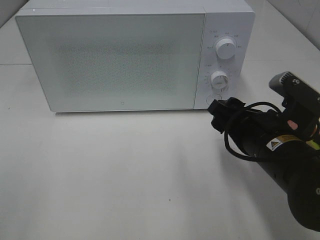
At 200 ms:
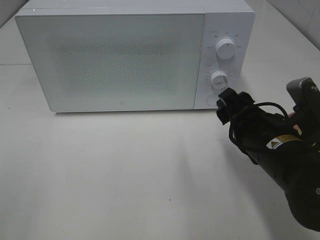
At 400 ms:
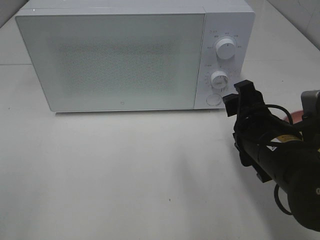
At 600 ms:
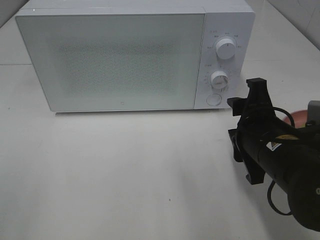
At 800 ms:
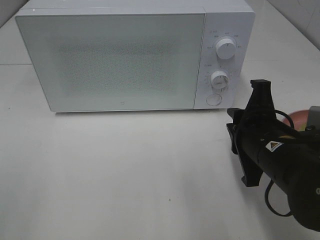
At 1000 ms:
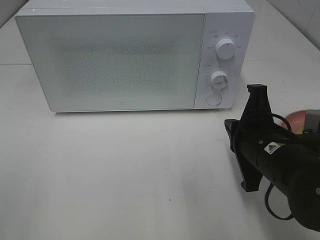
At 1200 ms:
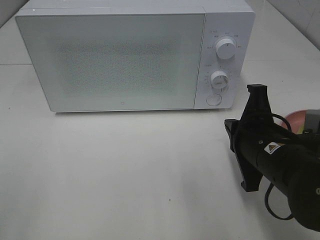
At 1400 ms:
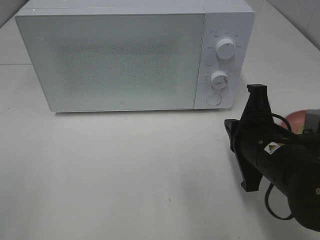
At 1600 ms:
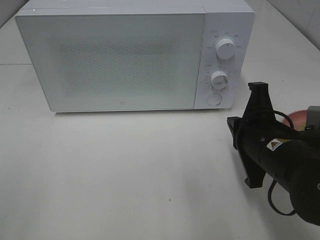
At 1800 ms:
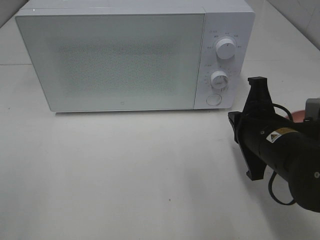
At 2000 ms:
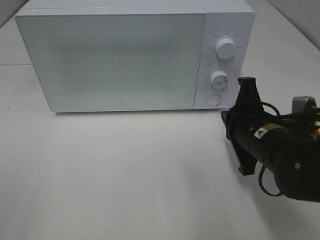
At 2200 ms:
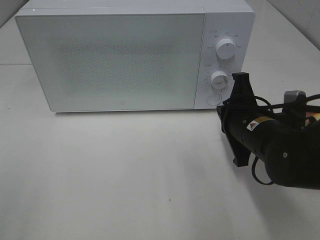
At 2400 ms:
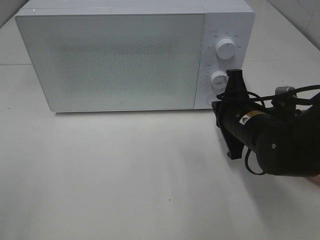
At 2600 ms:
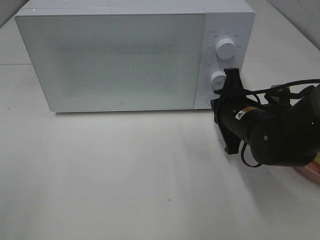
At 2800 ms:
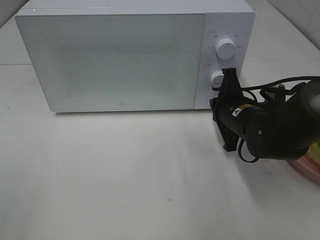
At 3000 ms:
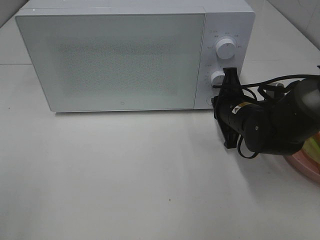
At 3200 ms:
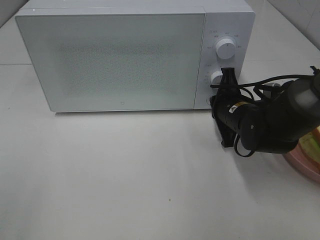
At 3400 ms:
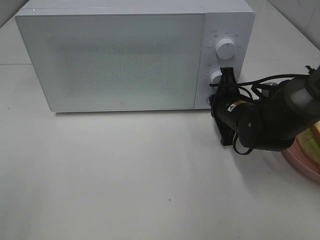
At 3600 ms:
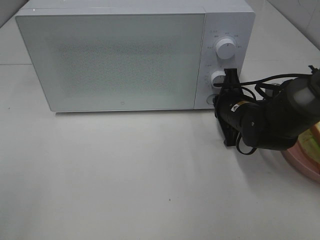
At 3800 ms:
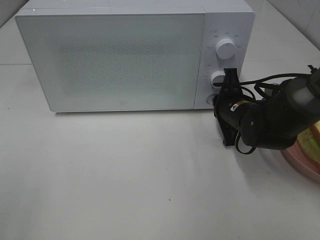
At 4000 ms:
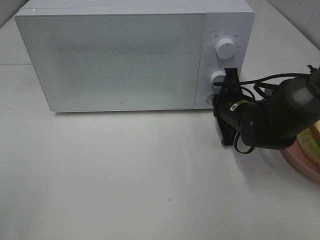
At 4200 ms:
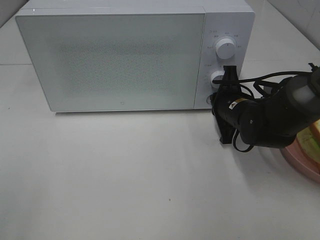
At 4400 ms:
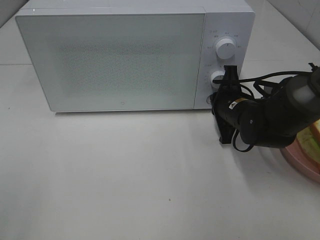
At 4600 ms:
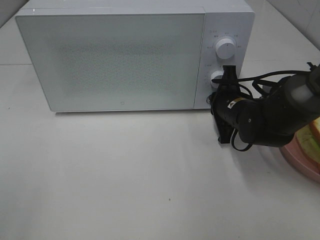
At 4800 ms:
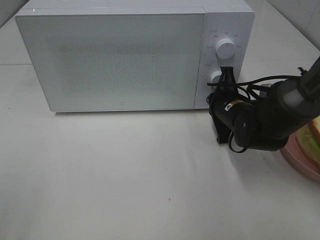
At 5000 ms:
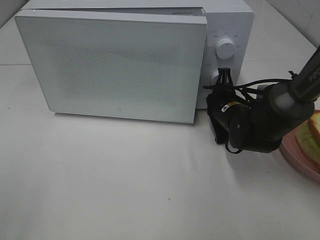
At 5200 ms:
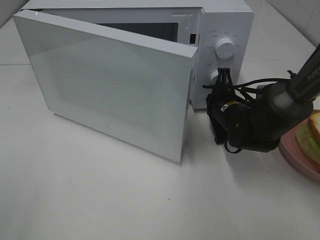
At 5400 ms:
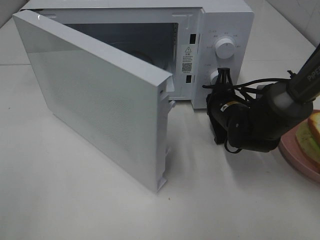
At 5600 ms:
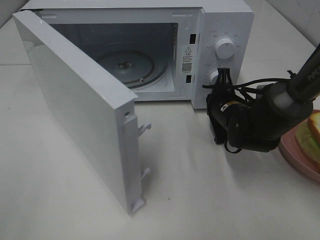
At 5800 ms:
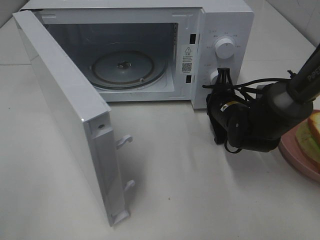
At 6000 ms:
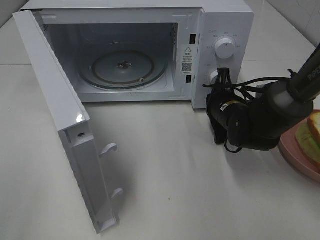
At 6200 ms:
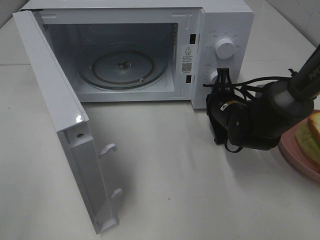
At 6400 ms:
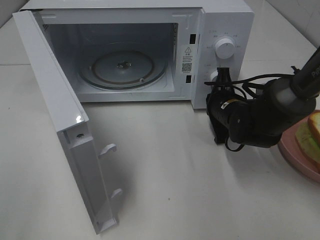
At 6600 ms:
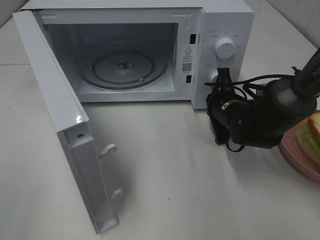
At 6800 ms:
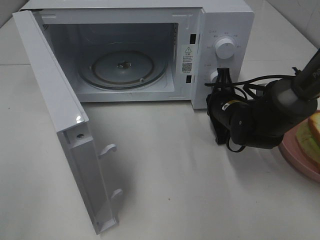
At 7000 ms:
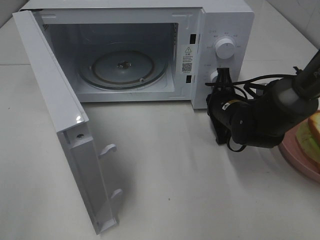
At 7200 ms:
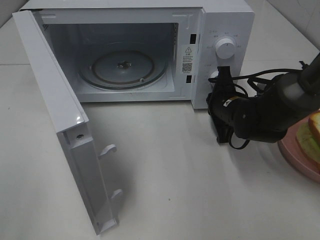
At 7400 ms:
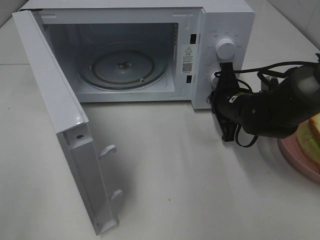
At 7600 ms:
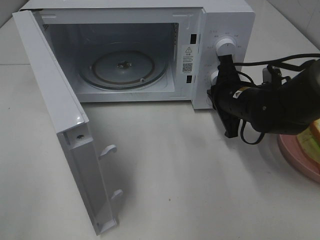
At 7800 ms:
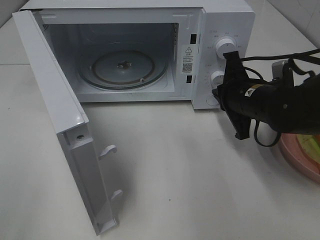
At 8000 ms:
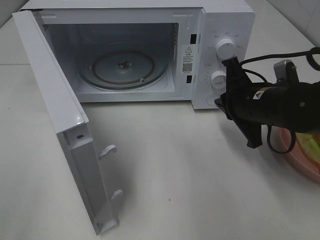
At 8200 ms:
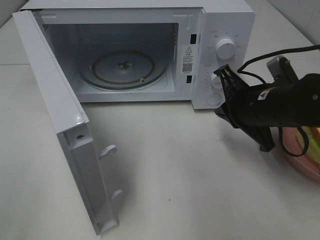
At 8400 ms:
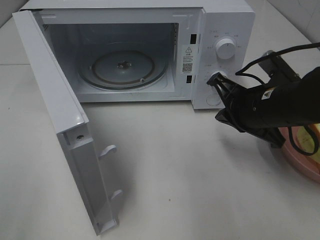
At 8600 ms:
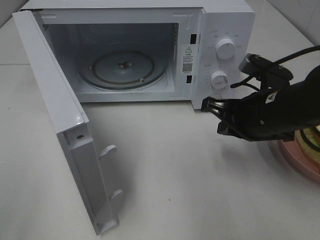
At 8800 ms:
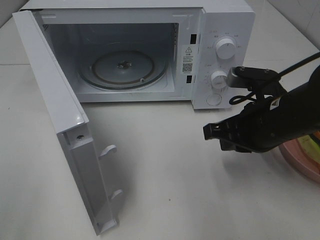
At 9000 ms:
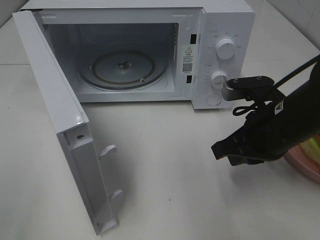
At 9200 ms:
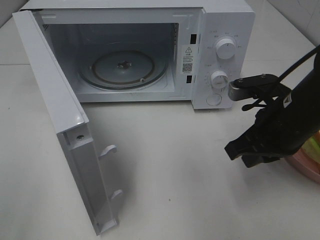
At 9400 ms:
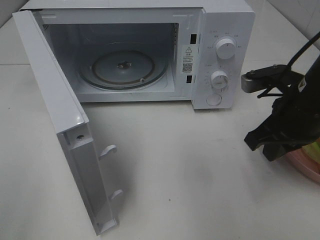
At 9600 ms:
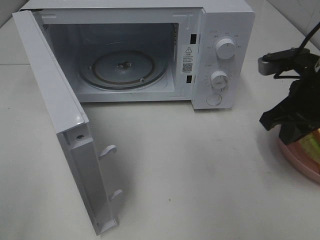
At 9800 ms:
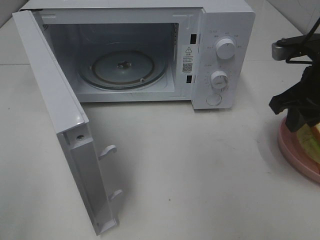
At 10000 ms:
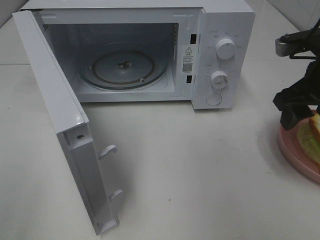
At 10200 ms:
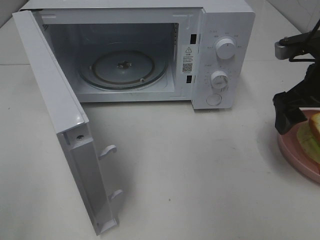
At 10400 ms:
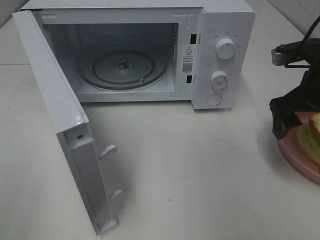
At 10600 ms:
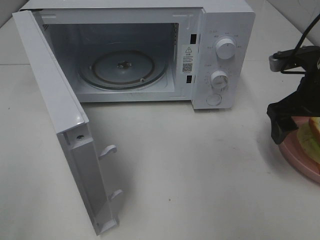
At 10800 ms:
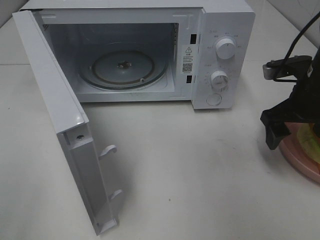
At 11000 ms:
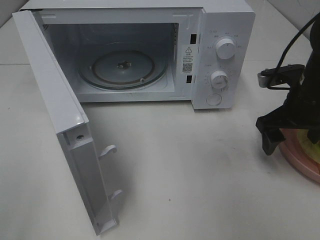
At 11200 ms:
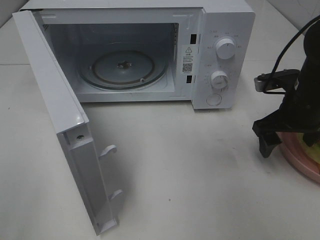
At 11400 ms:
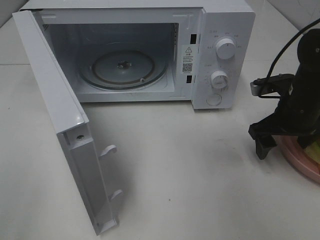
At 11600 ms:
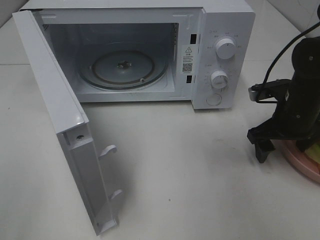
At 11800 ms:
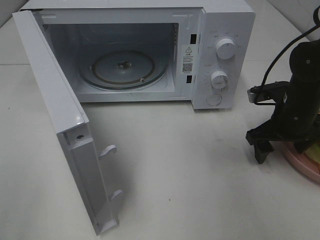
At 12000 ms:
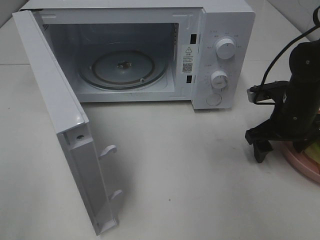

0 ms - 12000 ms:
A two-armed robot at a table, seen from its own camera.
Task of the whole recording: Heat Sandwich.
Step, 0 ms - 7400 ms: Right hand: press the switch.
0 ms - 1600 ms: The right gripper closes.
1600 ms - 3000 ms: The right gripper moves forward, some 10 cm.
3000 ms - 4400 ms: The grippers make only small movements.
6000 ms - 7600 ms: The right gripper moves roughly 5 cm.
7600 ms - 9000 ms: The right gripper heads backward, covering approximately 10 cm.
9000 ms - 10400 ms: The right gripper shifts some 10 cm to the right and forward, and opens up.
10400 ms - 12000 ms: The right gripper moves downward, approximately 10 cm.

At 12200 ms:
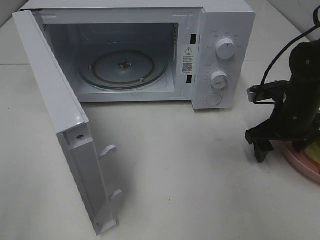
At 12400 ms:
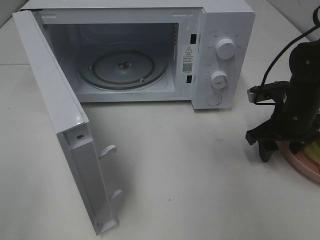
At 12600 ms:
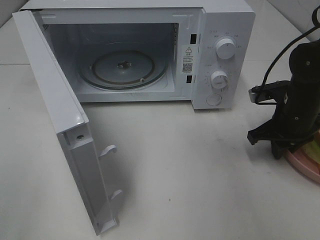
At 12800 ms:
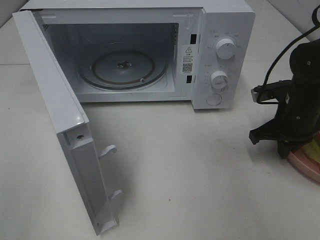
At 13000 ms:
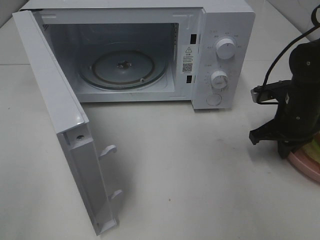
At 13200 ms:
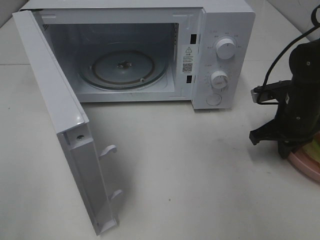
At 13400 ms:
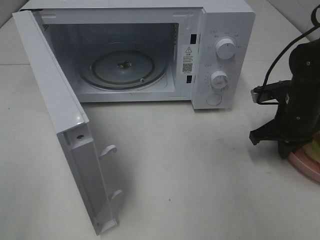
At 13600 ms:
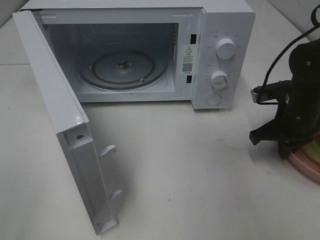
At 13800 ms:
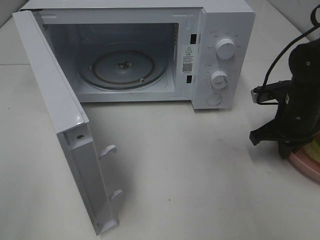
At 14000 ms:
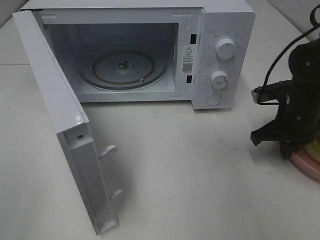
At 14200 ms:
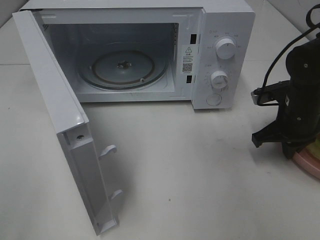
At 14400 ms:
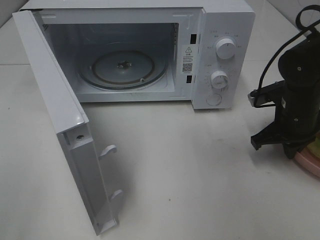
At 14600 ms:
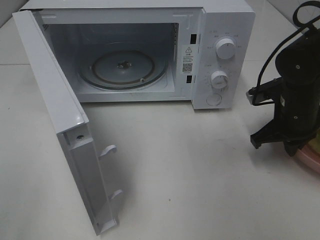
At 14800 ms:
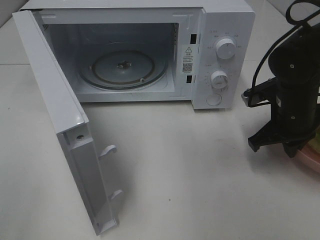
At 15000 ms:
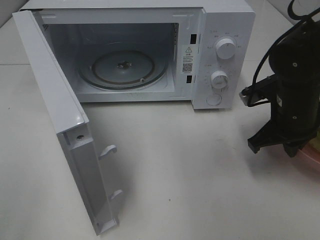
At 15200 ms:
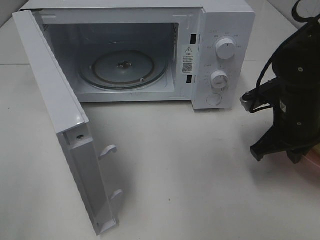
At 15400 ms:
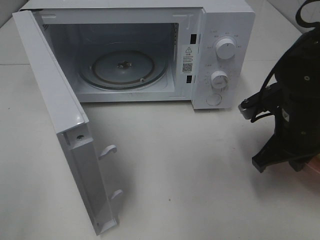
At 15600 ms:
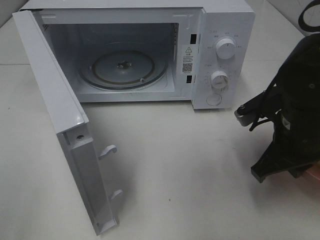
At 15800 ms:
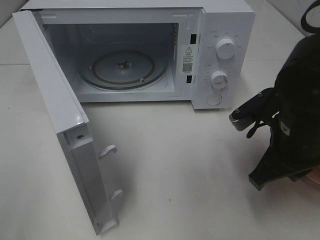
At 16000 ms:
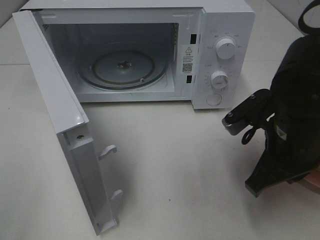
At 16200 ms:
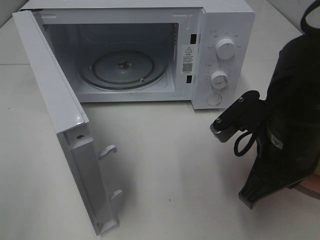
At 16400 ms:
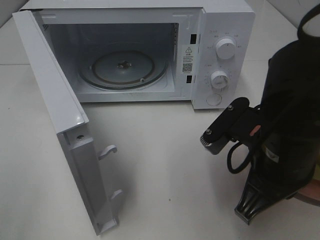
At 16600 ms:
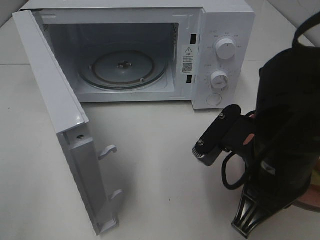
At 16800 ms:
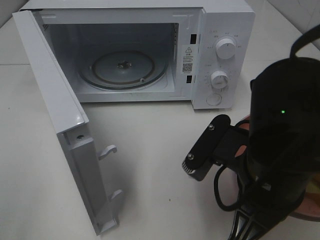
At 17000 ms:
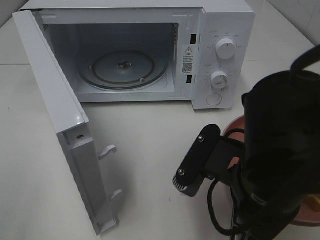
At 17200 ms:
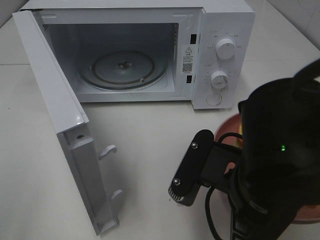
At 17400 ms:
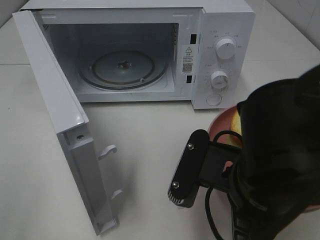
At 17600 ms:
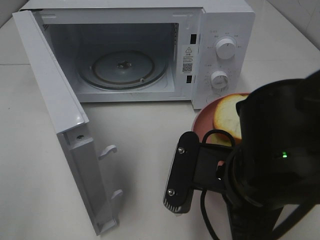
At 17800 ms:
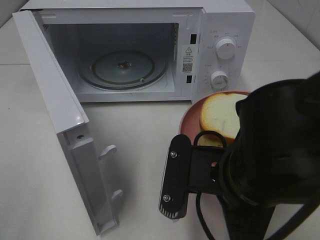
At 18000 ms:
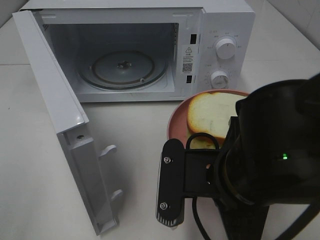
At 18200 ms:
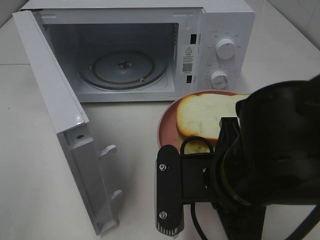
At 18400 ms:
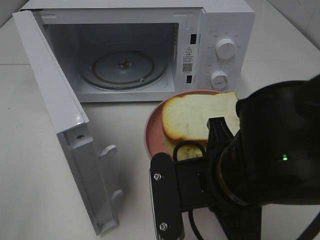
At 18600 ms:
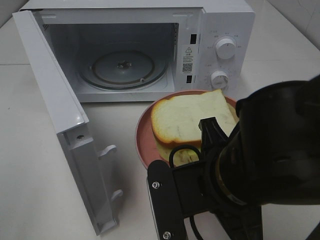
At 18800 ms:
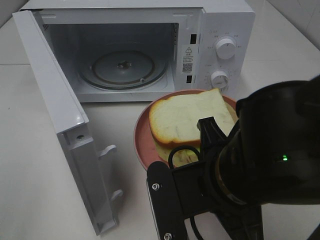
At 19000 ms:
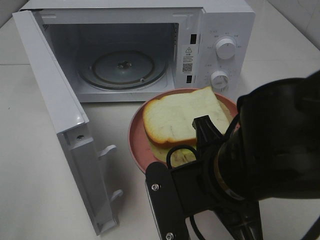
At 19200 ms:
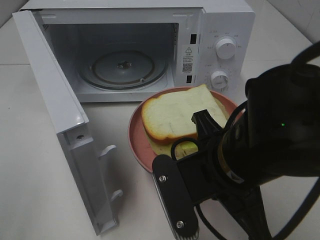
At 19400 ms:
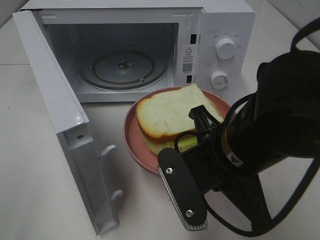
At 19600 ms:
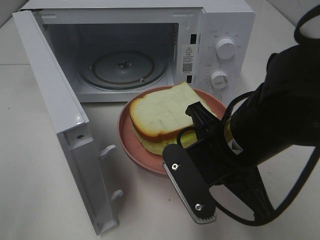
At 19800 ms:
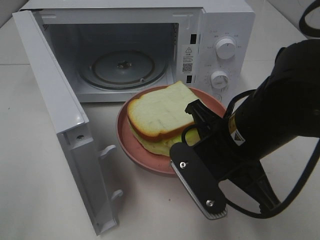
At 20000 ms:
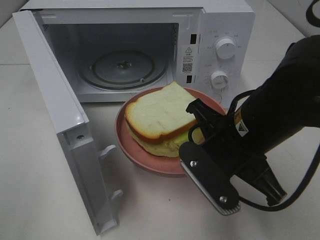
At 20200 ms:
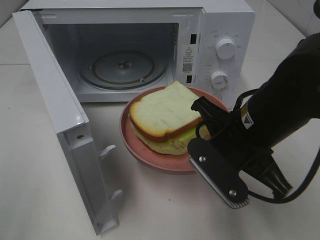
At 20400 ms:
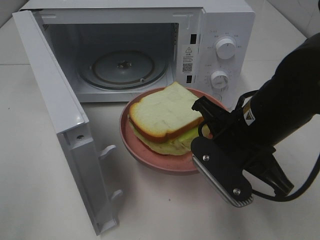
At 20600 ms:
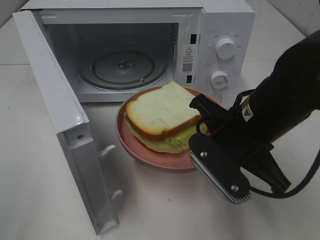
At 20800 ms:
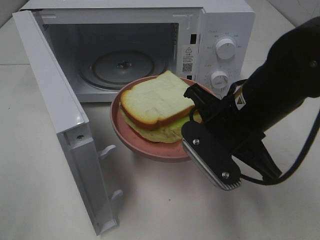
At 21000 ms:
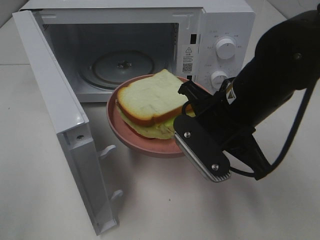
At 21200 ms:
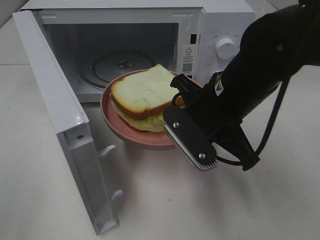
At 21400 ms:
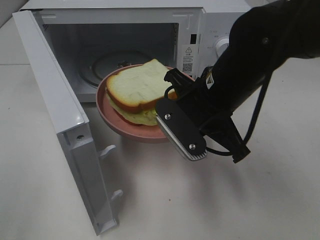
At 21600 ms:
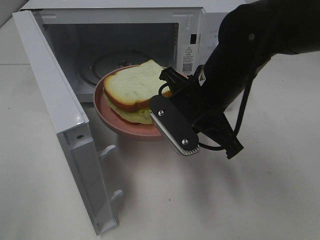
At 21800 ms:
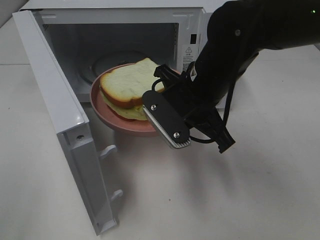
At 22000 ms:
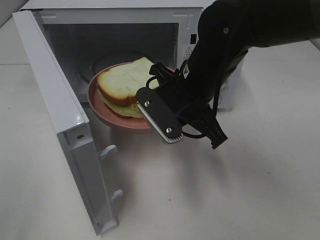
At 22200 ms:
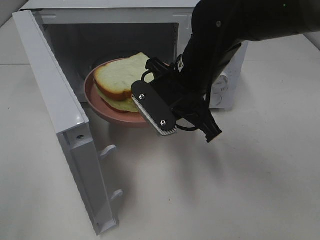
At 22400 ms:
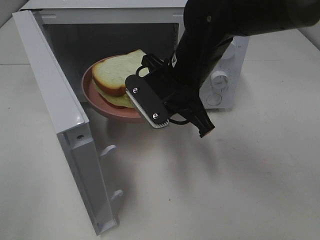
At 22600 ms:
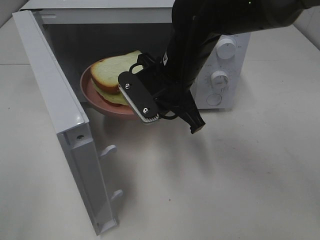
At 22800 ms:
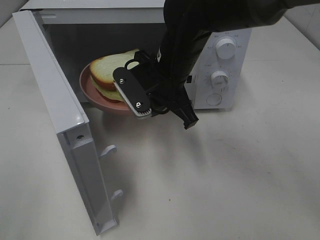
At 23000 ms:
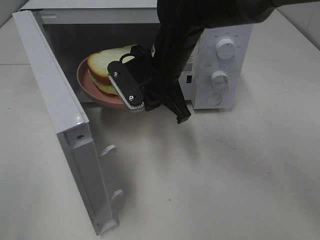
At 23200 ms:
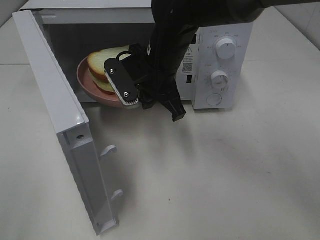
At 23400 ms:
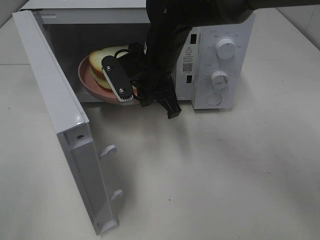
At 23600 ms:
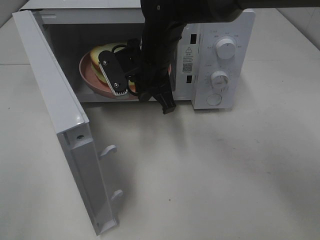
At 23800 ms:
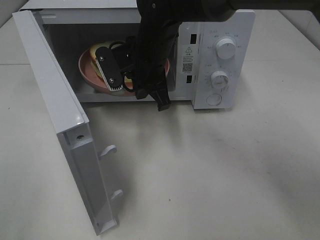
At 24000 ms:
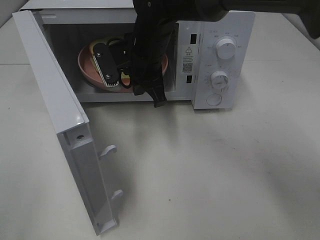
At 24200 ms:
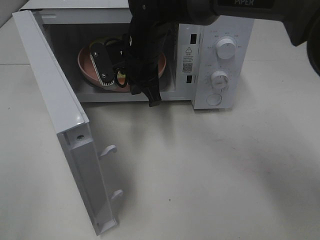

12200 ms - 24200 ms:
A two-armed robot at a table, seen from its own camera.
Task of the whole recording: Heat Sandwich.
12200 ms - 13800 ms: The right gripper closes its fingers.
13800 ms - 15200 ms: The right gripper changes place by about 5 cm.
15200 ms - 16600 ms: The right gripper heads backward and to the left, covering some 15 cm.
16600 ms - 18200 ms: The right gripper shifts by roughly 5 cm.
18200 ms - 19800 ms: The right gripper is displaced forward by some 5 cm.
19800 ms - 21200 ms: The right gripper travels forward by approximately 5 cm.
21200 ms - 22600 ms: The right gripper is displaced forward and to the left by about 10 cm.
22600 ms - 24200 ms: The right gripper is displaced forward and to the left by approximately 10 cm.
